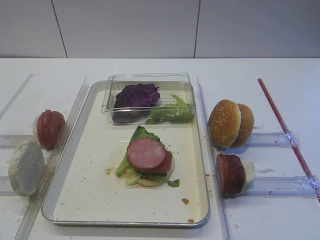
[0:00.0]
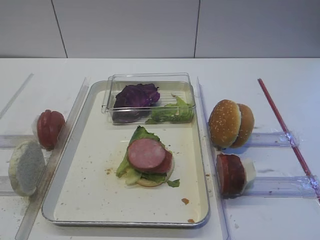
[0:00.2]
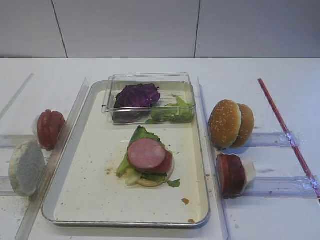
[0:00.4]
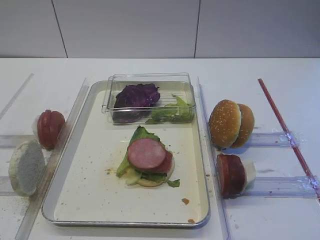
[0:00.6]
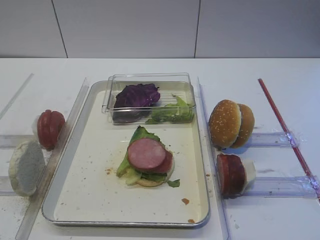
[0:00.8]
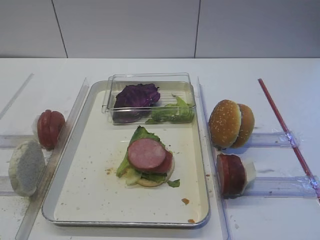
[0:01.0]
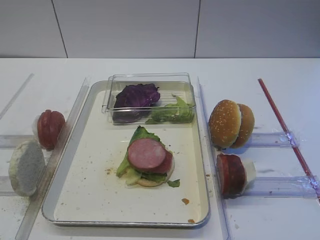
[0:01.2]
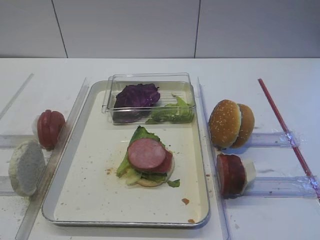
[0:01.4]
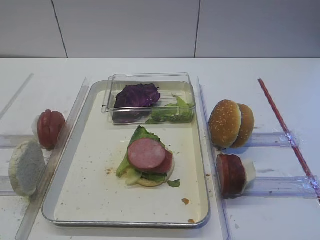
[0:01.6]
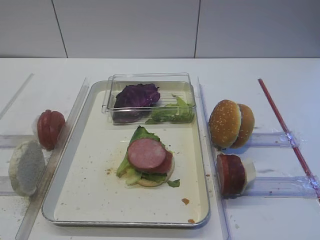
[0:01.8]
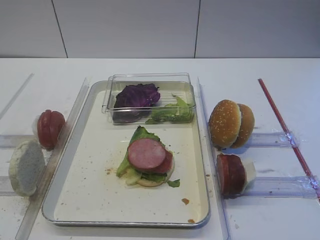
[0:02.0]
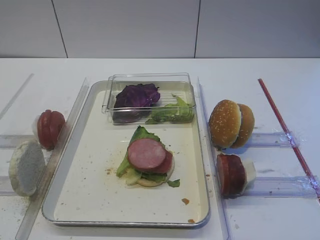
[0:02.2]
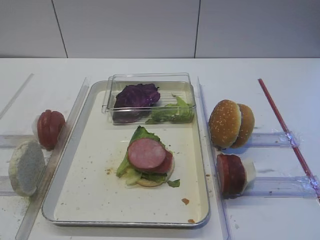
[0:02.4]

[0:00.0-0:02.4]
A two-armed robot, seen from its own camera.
0:00.0 to 0:02.4: Both grippers stay put.

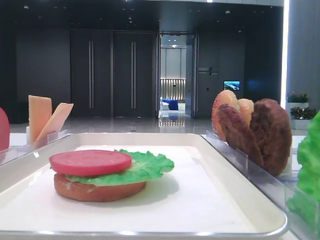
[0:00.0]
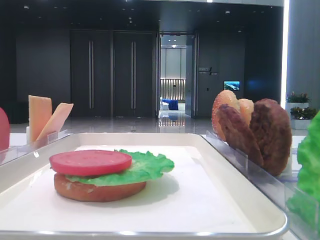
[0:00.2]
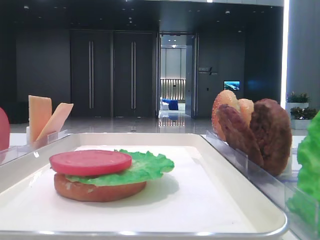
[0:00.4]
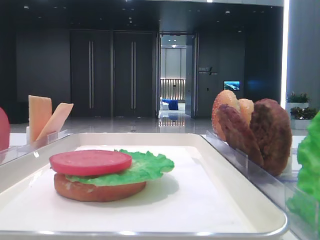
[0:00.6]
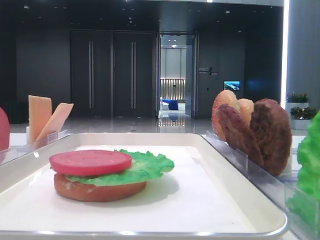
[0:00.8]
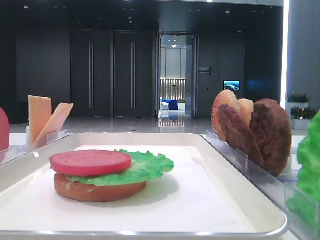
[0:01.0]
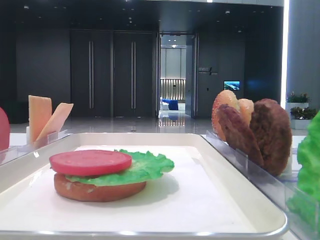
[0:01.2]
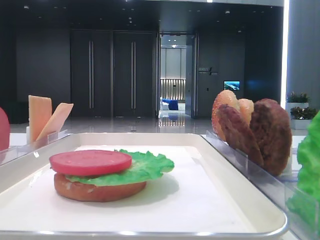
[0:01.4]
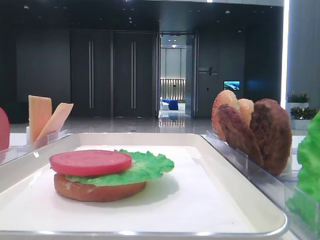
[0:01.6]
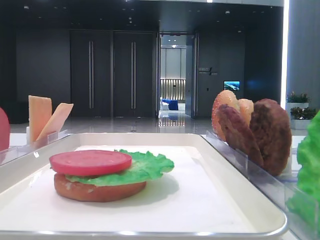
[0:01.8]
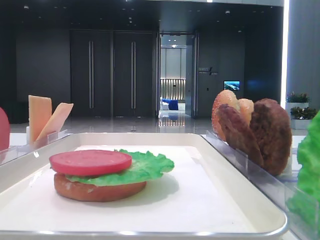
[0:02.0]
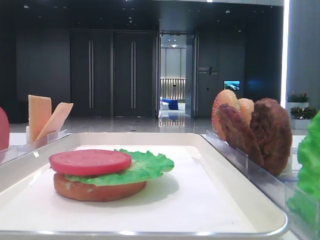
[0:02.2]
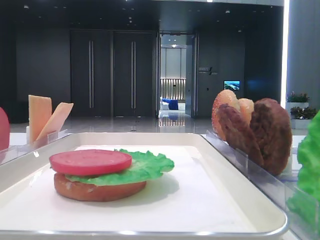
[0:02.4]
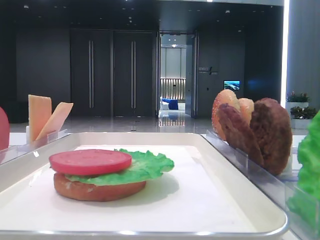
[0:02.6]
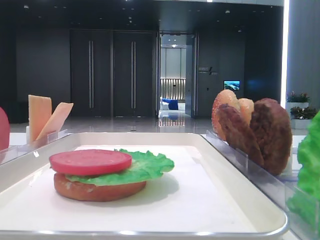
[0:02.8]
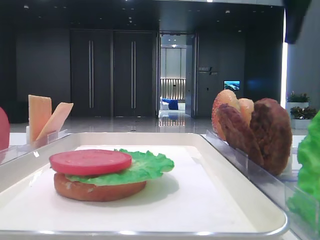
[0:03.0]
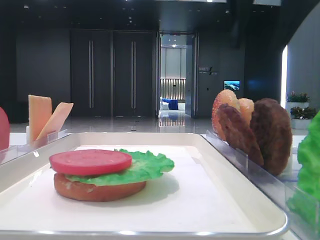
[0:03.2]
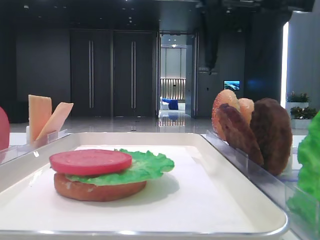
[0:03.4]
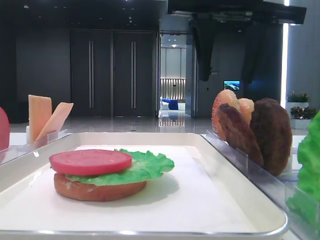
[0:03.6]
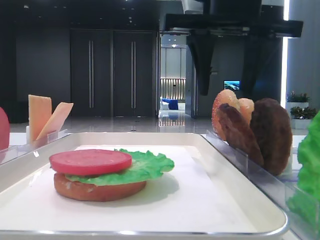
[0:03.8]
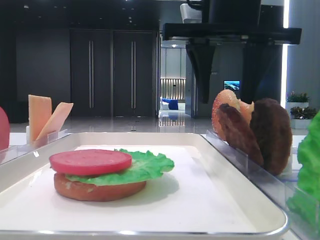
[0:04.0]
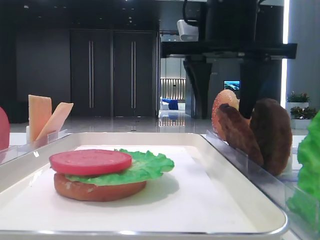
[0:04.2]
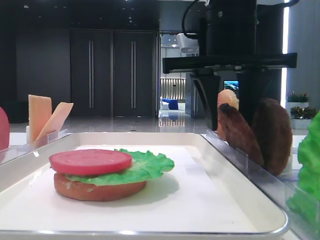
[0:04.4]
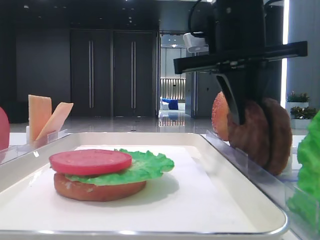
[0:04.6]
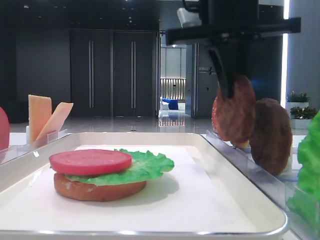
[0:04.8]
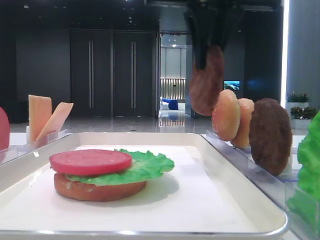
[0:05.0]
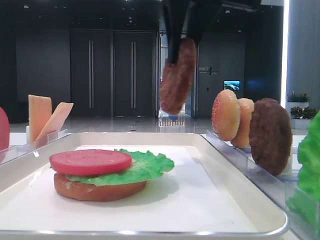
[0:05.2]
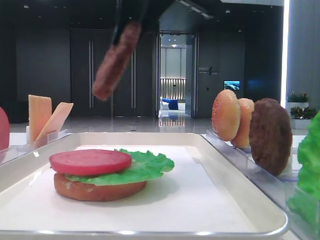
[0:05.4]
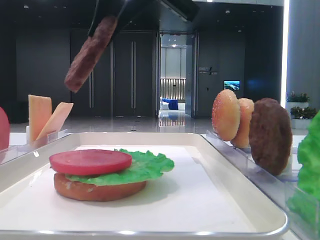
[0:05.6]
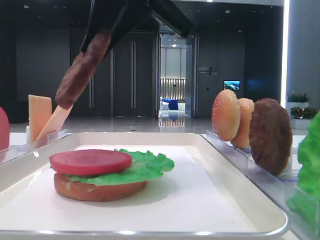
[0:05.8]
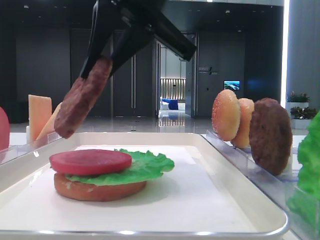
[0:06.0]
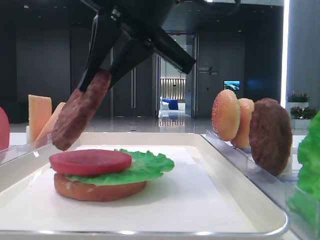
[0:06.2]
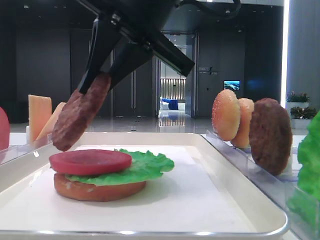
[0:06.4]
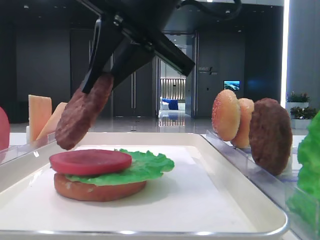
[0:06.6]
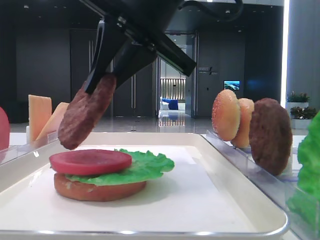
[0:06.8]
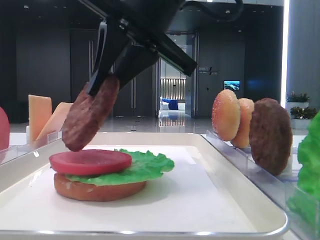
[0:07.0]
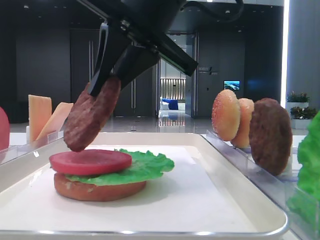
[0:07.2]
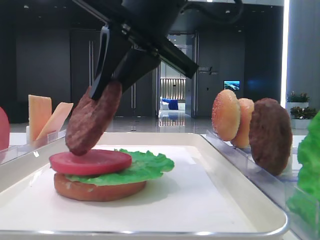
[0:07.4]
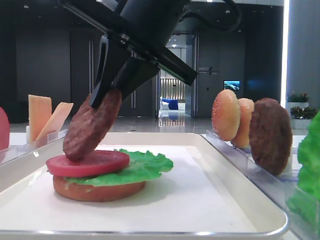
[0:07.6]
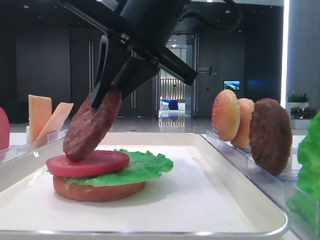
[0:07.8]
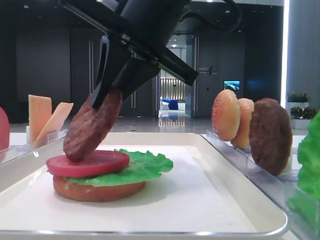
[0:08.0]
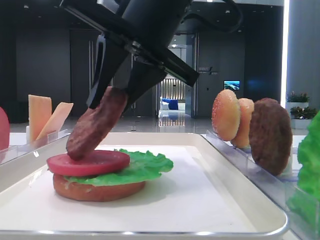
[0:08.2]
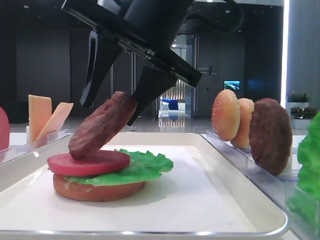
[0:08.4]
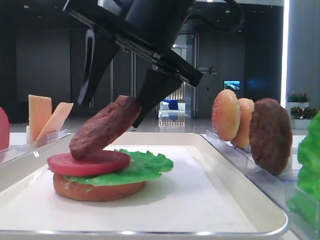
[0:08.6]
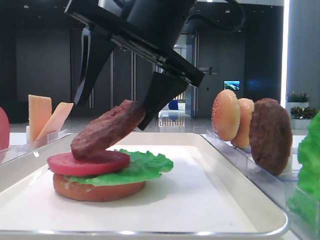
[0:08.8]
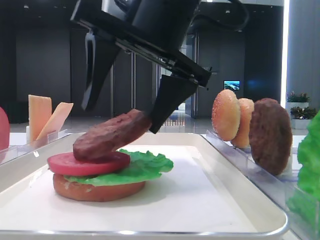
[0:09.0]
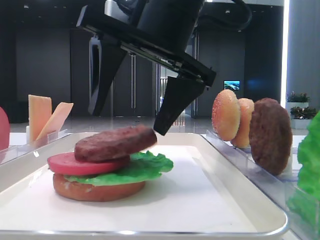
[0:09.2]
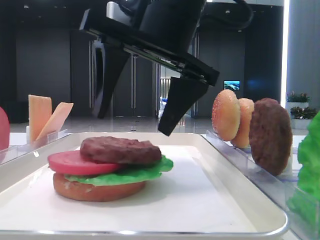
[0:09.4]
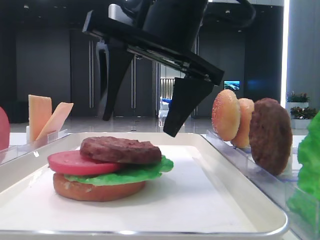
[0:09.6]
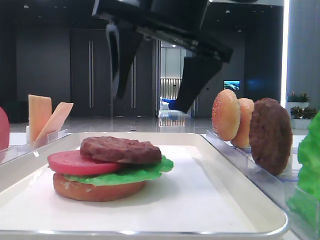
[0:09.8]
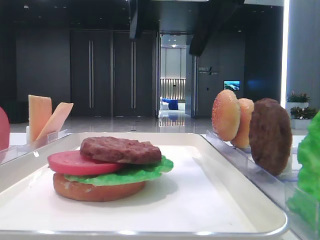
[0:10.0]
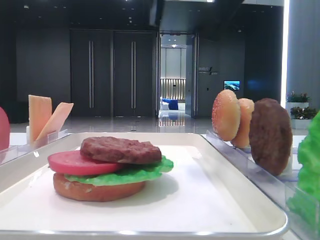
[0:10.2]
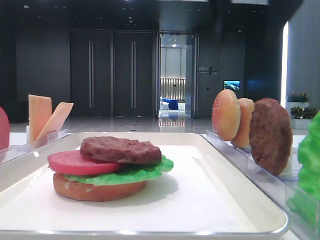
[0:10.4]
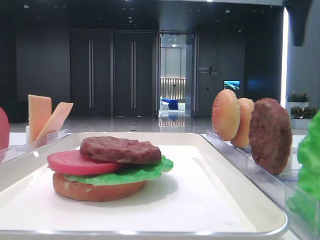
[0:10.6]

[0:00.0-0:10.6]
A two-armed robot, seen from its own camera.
Step, 0:00.0 to 0:04.4: Grab the patty with the right hand.
Step, 0:04.6 to 0:09.0: Place the patty on the tomato slice with the right hand.
0:01.6 to 0:03.0: The right gripper travels forward by approximately 30 cm.
0:03.0 to 0:04.6: The right gripper moves to the left and downward, about 15 cm, and closes its fingers.
0:04.6 to 0:06.0: The right gripper shifts roughly 10 cm to the left.
0:06.0 to 0:07.6: There are only small adjustments of the grippers.
0:07.6 to 0:09.0: The right gripper opens its fingers.
0:09.0 to 0:10.6: The right gripper shifts approximately 30 cm to the right and upward.

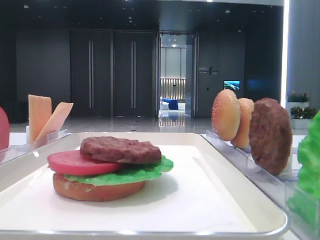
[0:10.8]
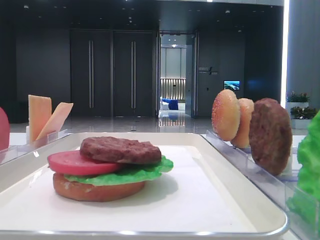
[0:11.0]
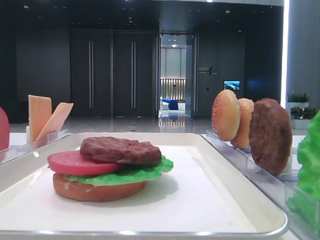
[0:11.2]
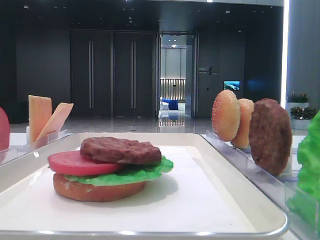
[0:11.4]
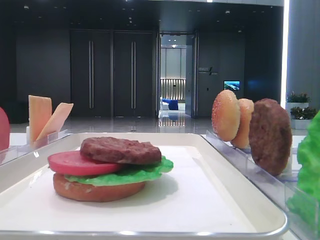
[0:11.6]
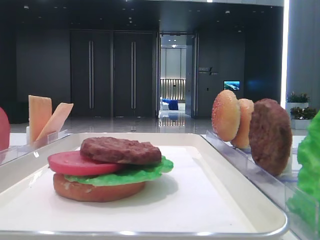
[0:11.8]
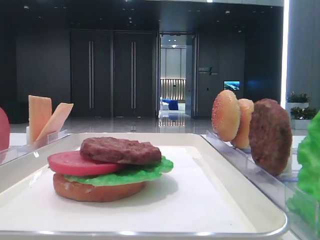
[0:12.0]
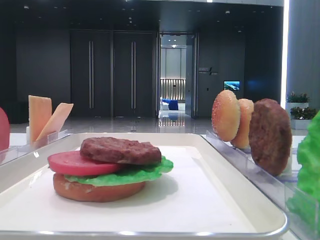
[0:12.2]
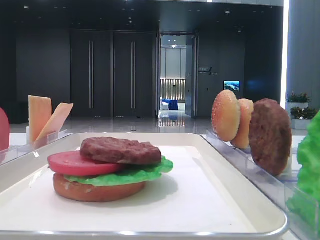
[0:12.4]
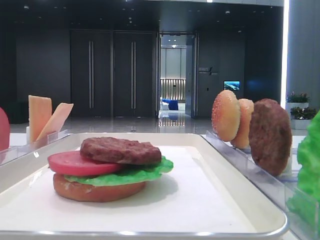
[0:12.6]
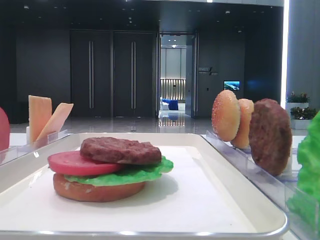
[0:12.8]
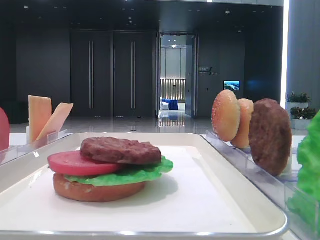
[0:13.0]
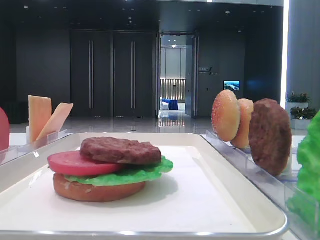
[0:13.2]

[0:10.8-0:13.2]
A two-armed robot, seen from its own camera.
0:10.8 to 0:12.0: The right gripper moves backward, approximately 35 cm.

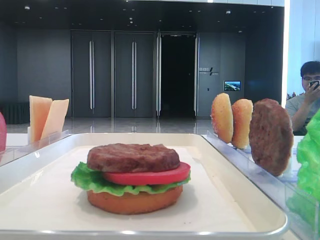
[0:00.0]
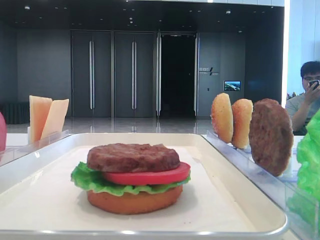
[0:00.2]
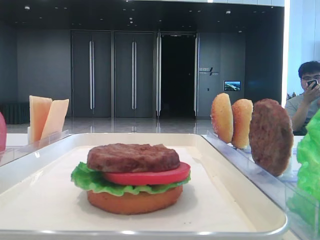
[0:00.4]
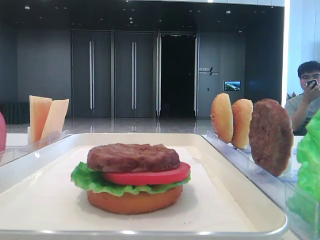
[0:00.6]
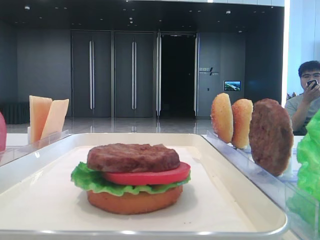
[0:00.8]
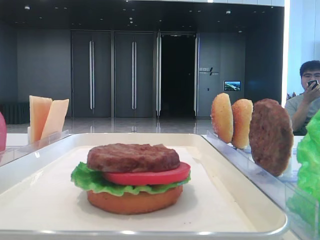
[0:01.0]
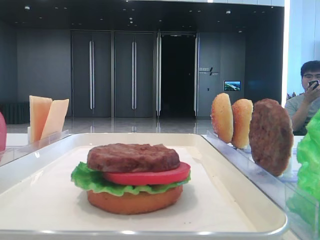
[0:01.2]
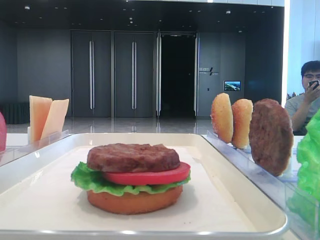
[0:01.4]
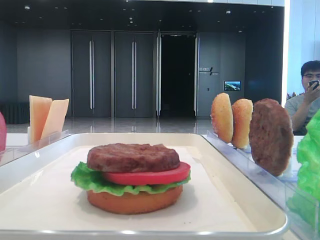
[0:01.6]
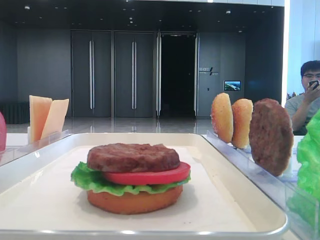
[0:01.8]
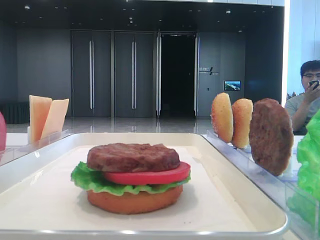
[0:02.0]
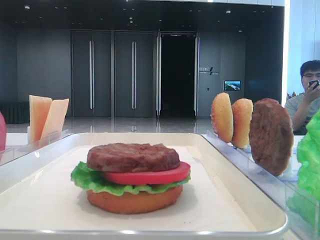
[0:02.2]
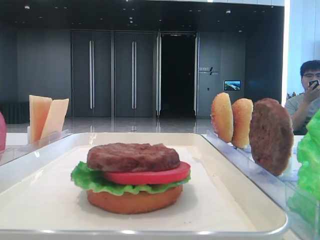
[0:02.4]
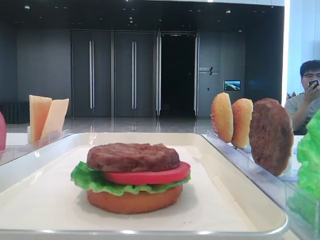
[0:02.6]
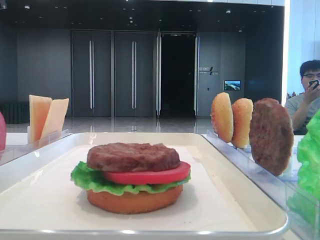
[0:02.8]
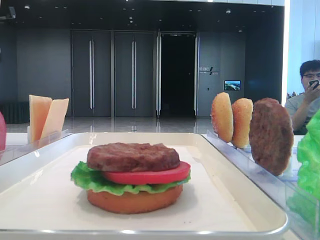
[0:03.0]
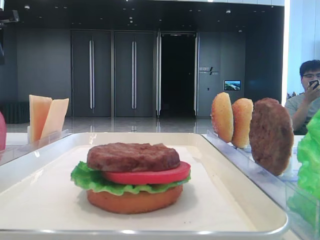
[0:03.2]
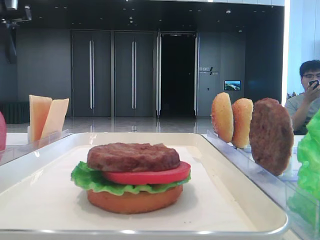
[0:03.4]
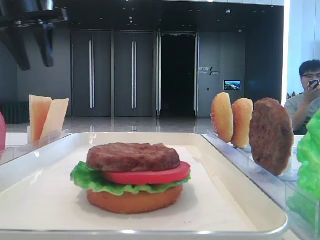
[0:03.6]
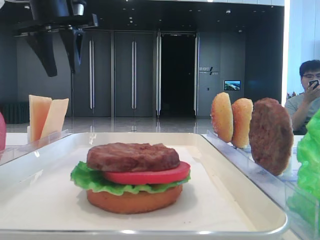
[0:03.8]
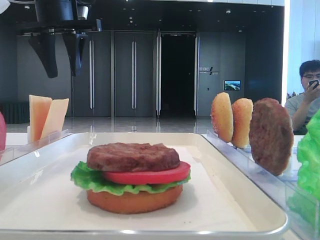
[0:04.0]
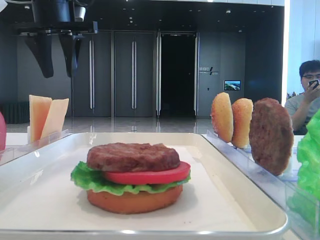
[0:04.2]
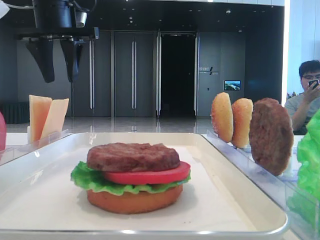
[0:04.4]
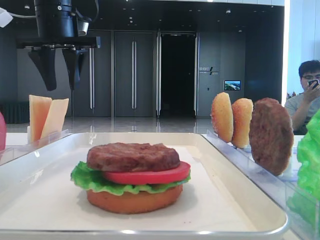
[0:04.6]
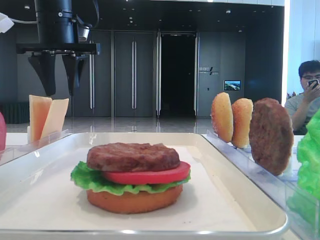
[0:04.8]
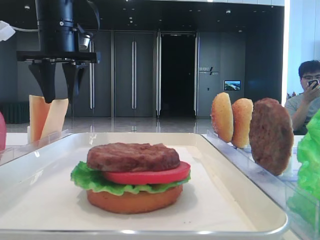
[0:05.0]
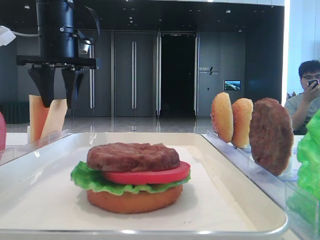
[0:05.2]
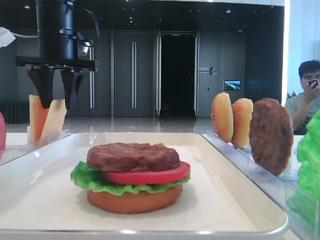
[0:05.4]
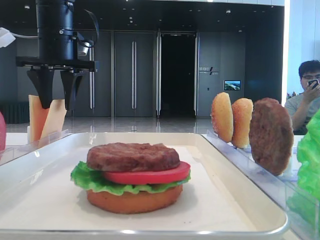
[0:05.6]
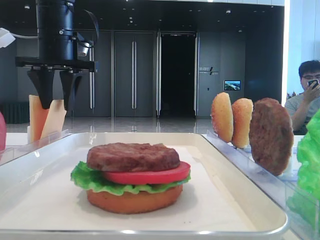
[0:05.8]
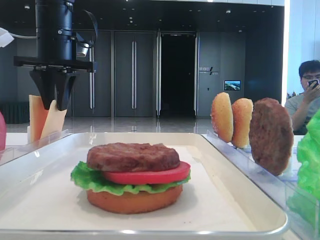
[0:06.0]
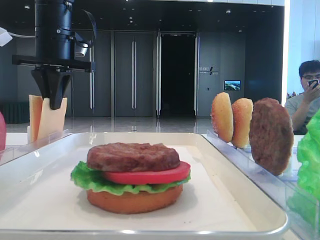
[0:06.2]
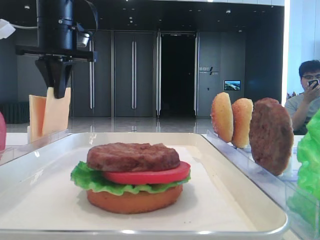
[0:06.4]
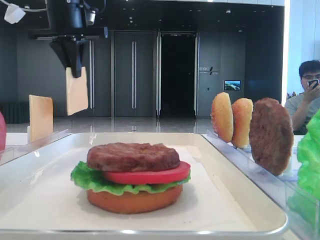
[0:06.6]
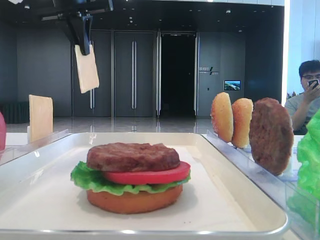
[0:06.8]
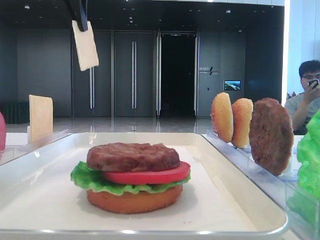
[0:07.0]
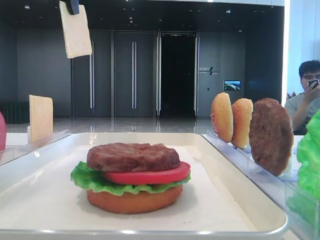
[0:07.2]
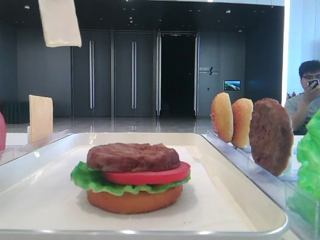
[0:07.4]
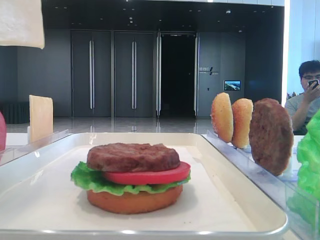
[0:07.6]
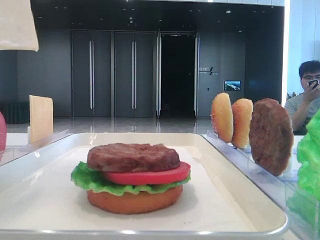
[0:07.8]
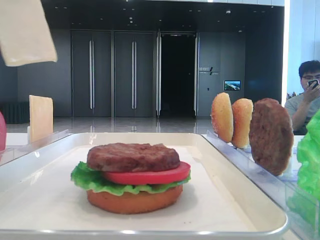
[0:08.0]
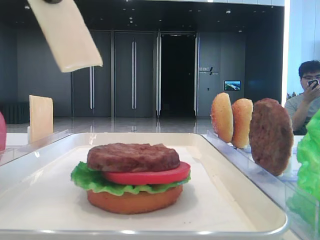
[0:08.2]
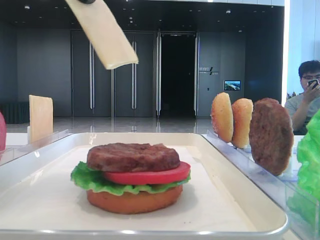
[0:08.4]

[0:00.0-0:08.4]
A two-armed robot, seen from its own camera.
Step, 0:00.0 to 0:06.0: Pick up the cheese slice with the left hand.
0:01.4 to 0:02.8: The left gripper travels forward by roughly 35 cm.
0:02.8 to 0:04.2: The left gripper goes approximately 15 cm to the right.
0:04.2 to 0:05.6: The left gripper shifts some 5 cm downward.
0:05.6 to 0:07.0: The left gripper goes some 15 cm upward, and closes its fingers.
0:07.0 to 0:08.4: The left gripper shifts roughly 20 cm backward.
